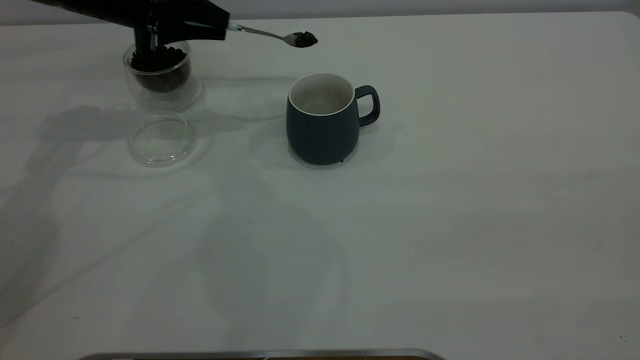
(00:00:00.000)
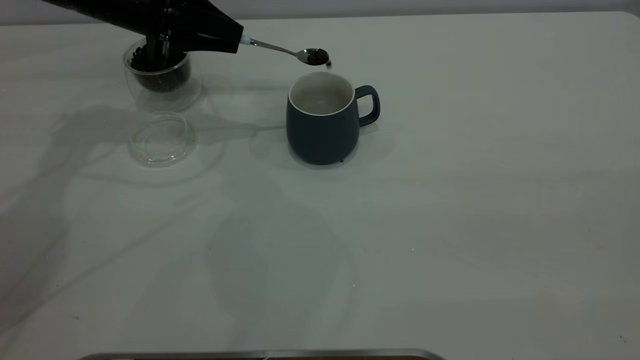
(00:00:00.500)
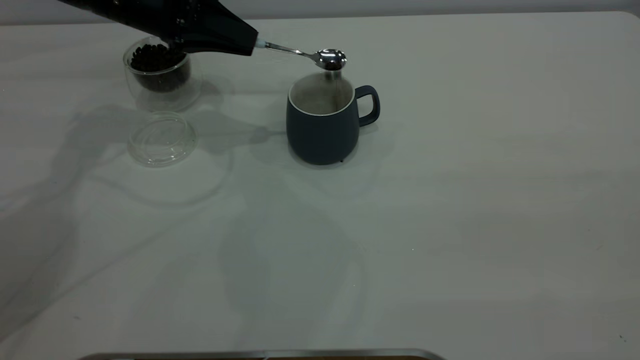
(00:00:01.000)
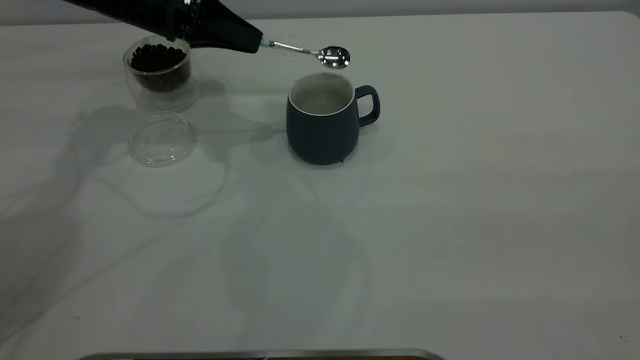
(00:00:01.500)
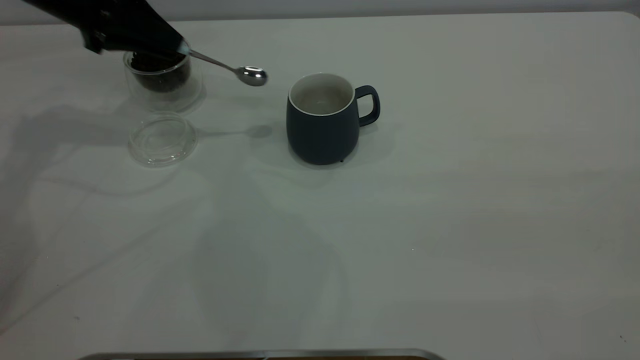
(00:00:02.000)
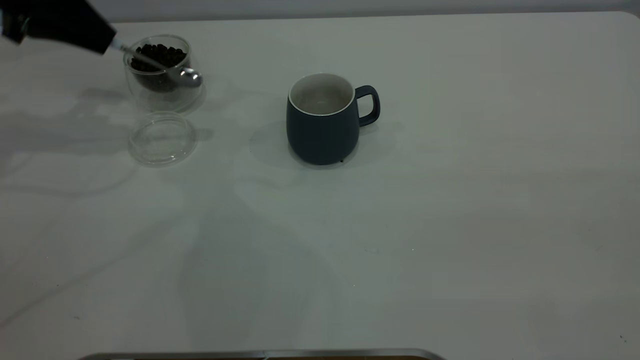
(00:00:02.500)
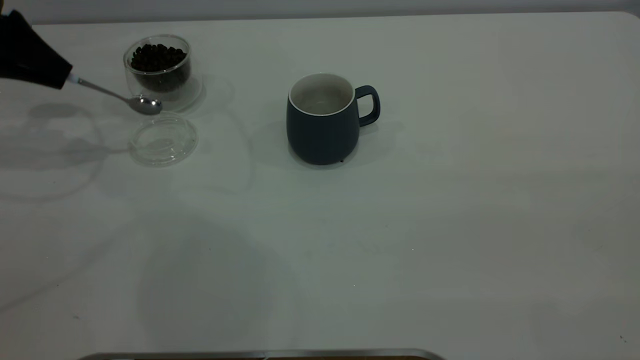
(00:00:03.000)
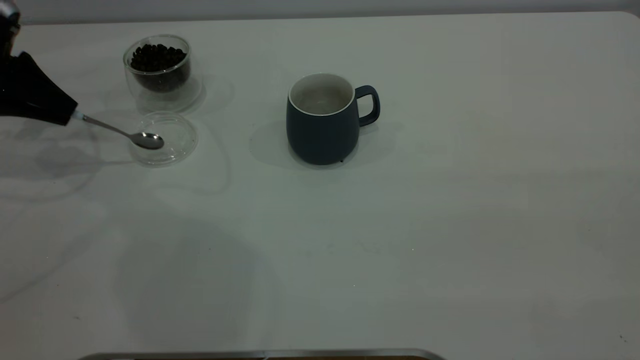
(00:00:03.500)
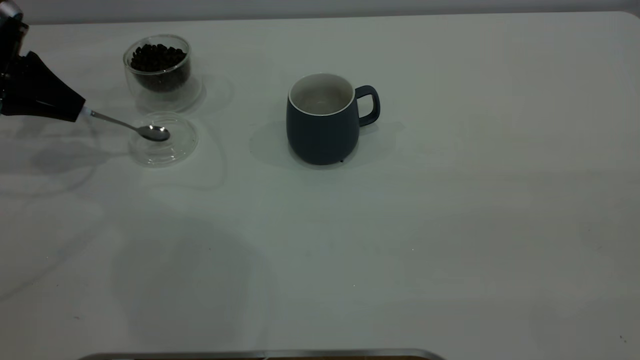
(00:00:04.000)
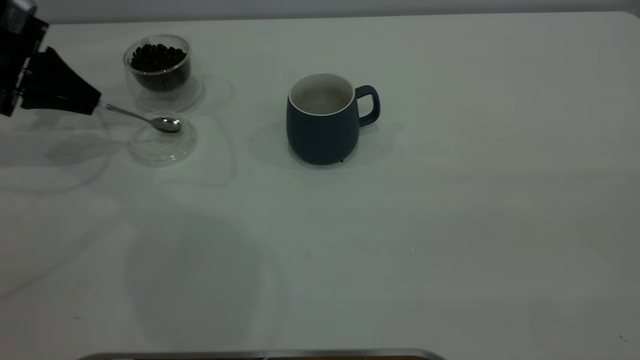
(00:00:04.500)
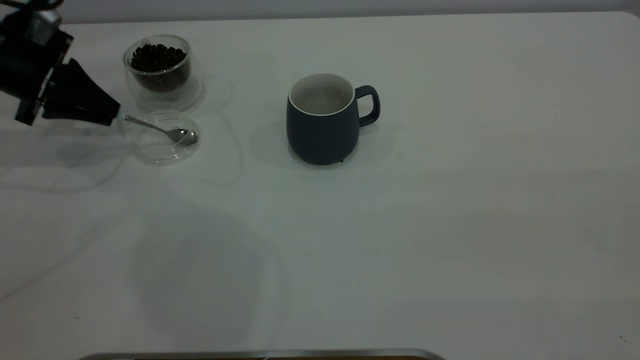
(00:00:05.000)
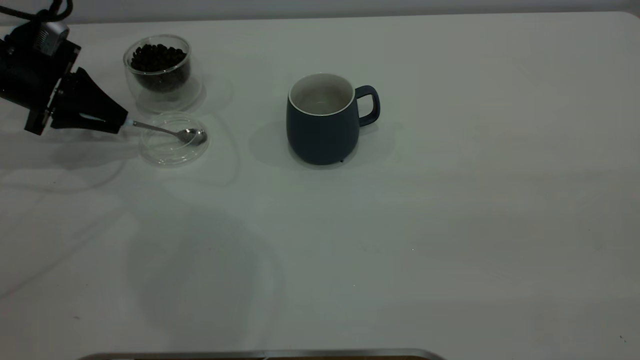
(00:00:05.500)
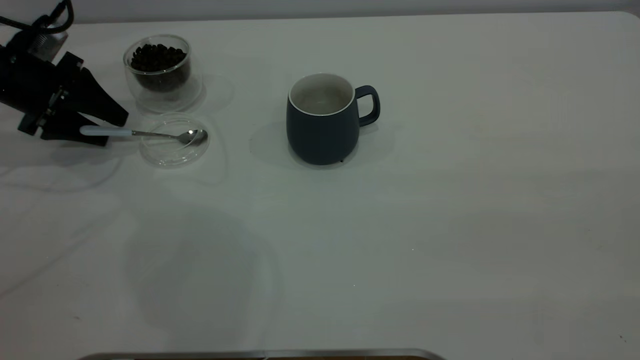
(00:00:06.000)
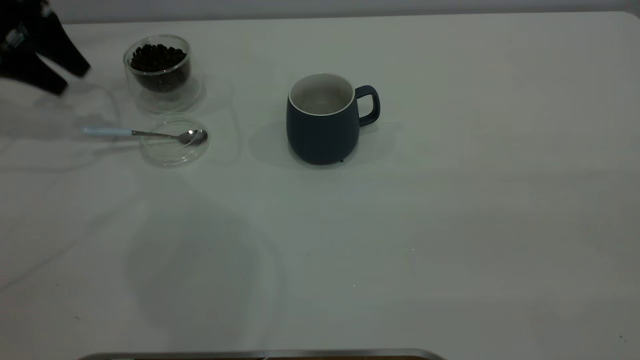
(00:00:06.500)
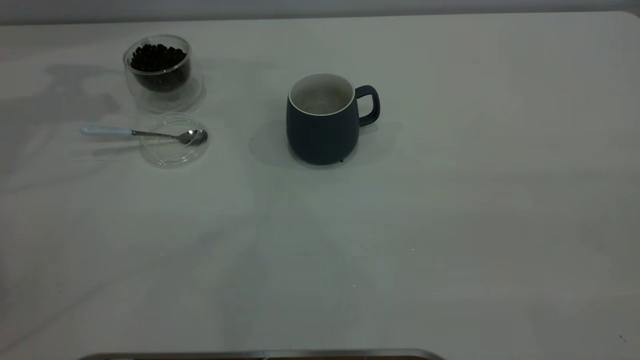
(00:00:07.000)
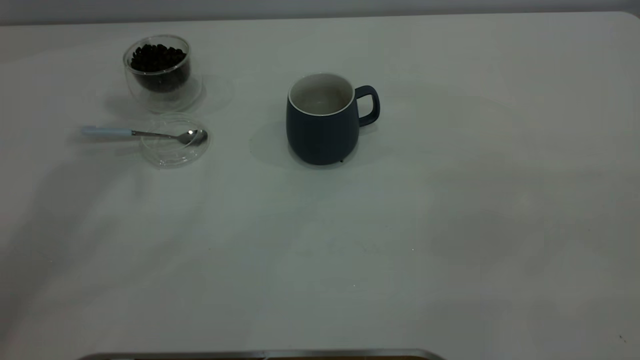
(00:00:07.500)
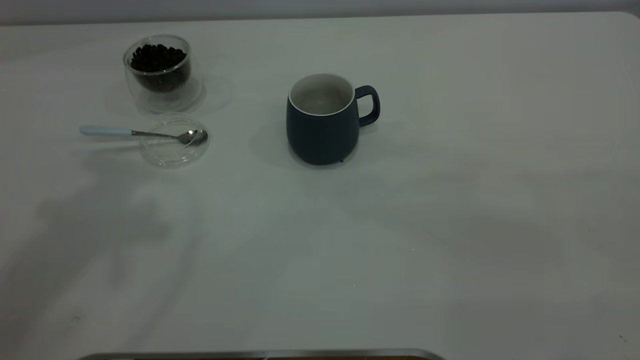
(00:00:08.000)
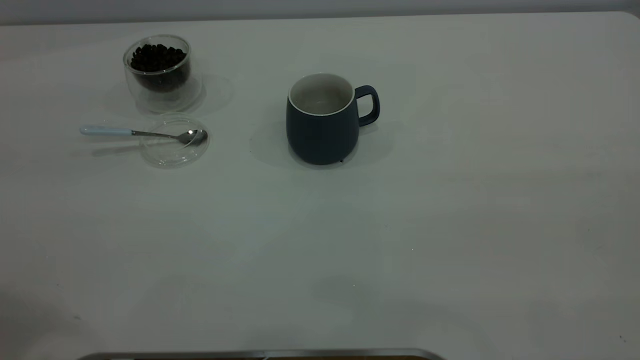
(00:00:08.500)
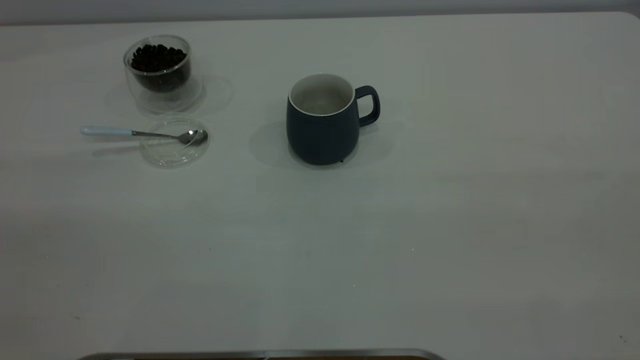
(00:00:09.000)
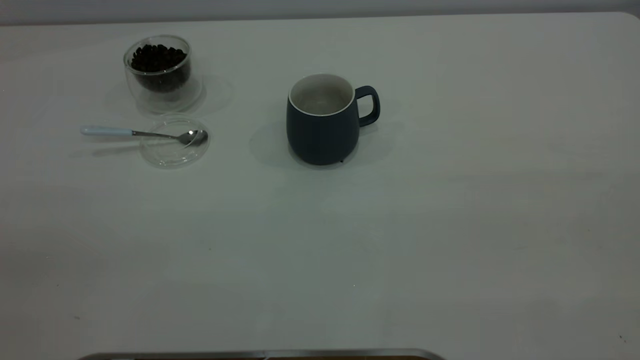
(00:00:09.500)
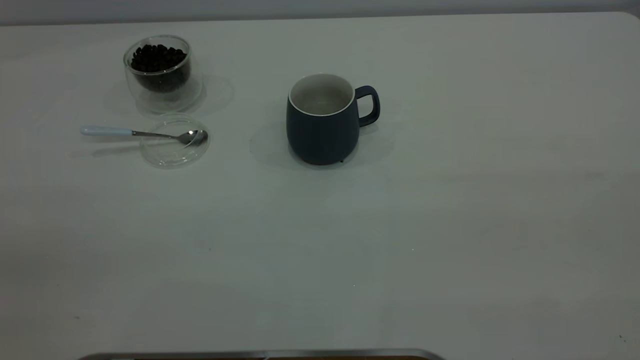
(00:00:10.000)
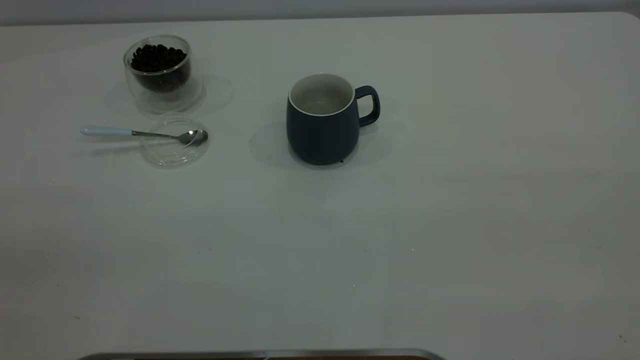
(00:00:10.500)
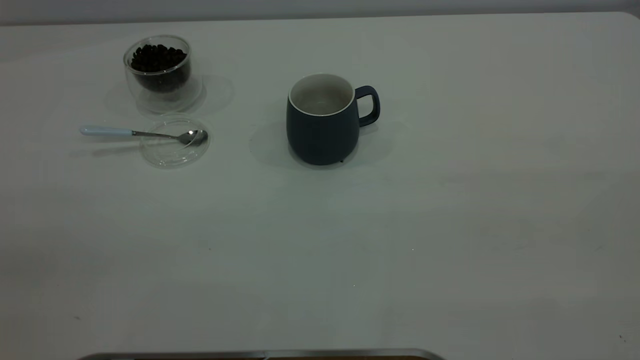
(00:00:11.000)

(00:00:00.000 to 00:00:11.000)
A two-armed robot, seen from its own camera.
Task of the whole recording: the right gripper place the grey cup in the center of the table, the left gripper take the blue spoon from the cup lid and scoop out the coffee beans from the coffee cup and put them into the grey cup, the left gripper put the spoon back into the cup lid.
Step, 00:00:02.000 - 00:00:06.500: Place the spoon back in its original place.
00:00:00.000 - 00:00:02.000: The left gripper ends up approximately 5 cm from where it was.
00:00:02.000 - 00:00:03.500: The left gripper moves to the left and downward, about 15 cm.
00:00:03.500 - 00:00:05.500: The left gripper shifts by about 5 cm.
00:00:05.500 - 00:00:07.500: The left gripper travels upward by roughly 40 cm, and opens its fingers.
